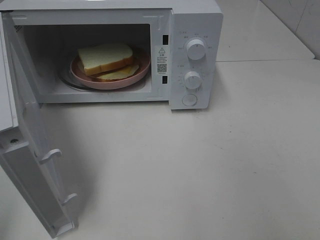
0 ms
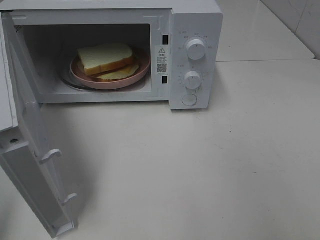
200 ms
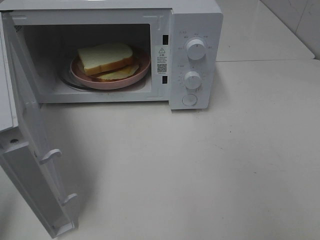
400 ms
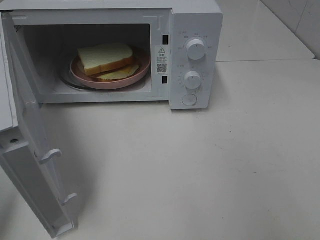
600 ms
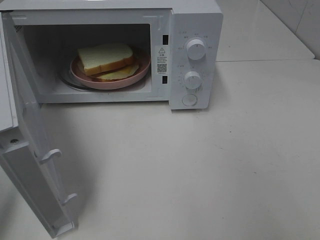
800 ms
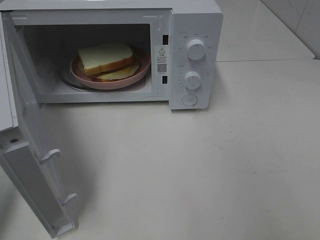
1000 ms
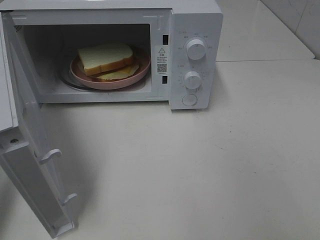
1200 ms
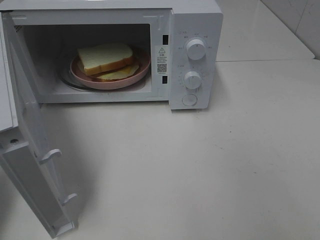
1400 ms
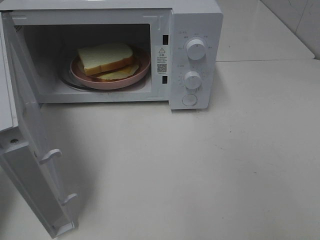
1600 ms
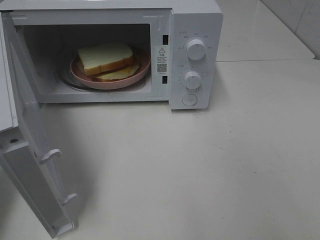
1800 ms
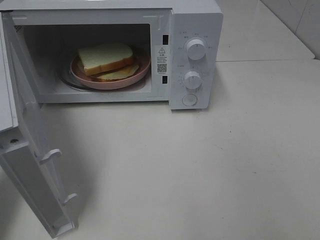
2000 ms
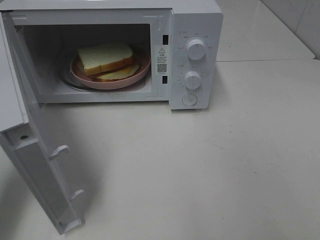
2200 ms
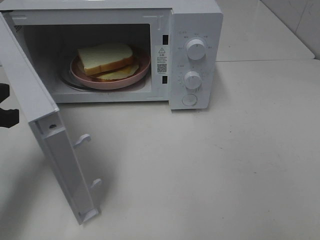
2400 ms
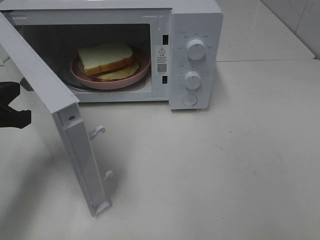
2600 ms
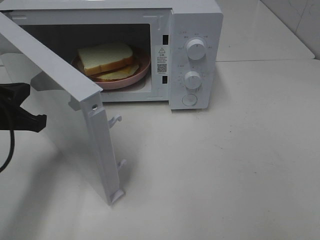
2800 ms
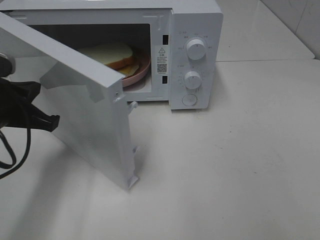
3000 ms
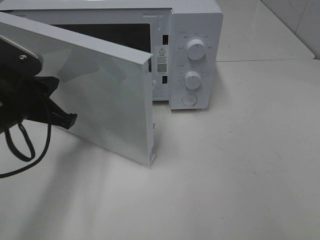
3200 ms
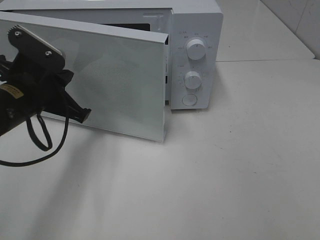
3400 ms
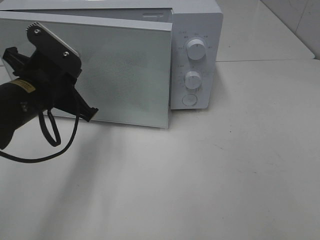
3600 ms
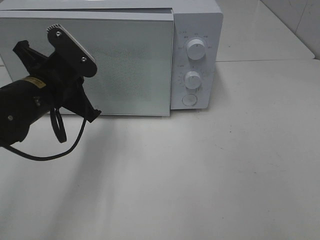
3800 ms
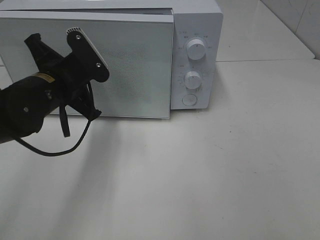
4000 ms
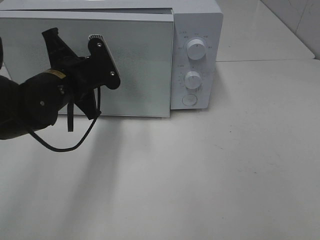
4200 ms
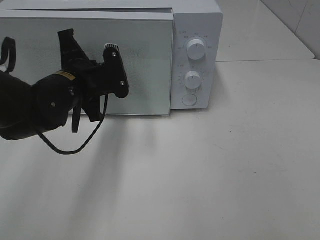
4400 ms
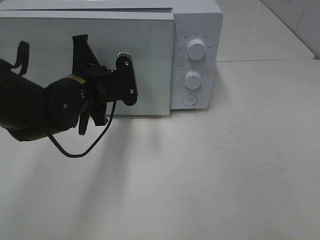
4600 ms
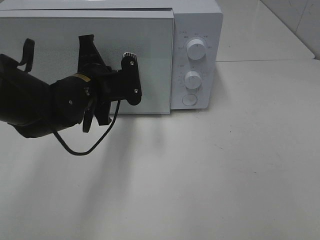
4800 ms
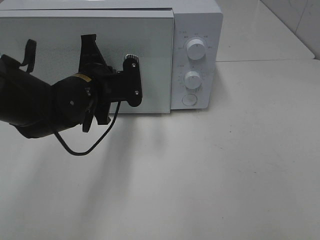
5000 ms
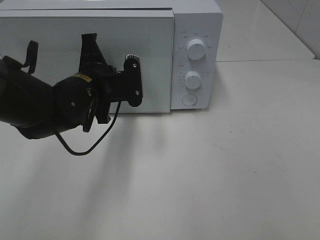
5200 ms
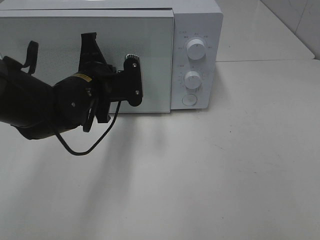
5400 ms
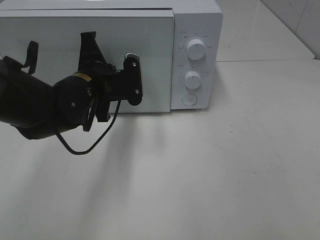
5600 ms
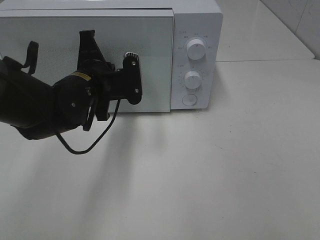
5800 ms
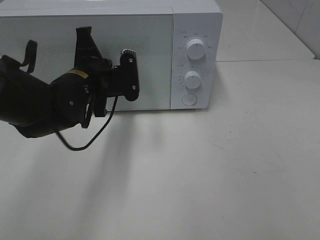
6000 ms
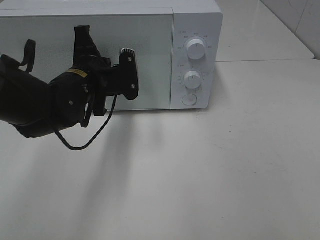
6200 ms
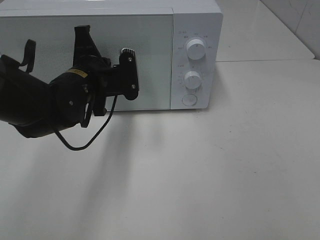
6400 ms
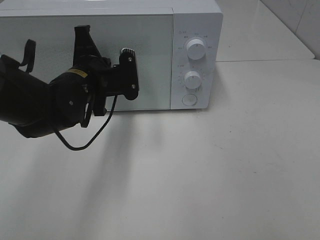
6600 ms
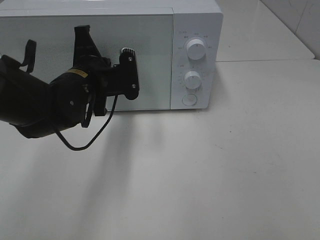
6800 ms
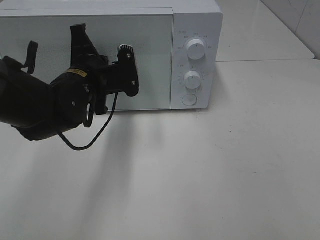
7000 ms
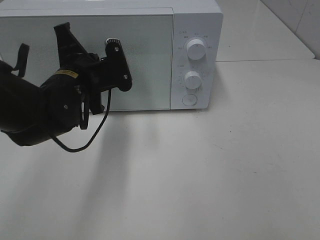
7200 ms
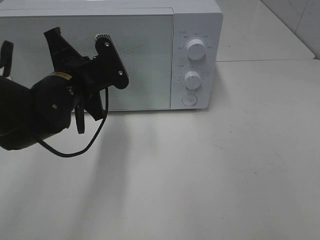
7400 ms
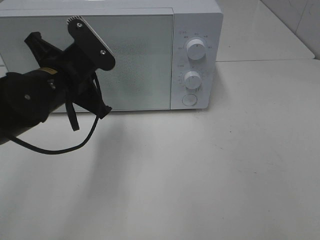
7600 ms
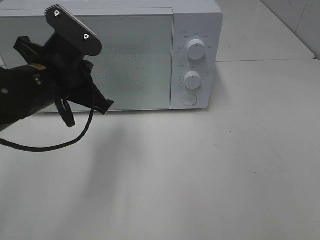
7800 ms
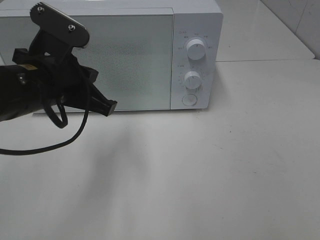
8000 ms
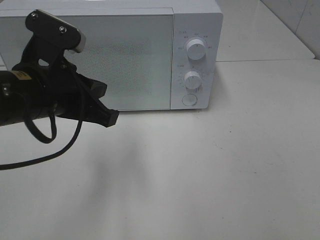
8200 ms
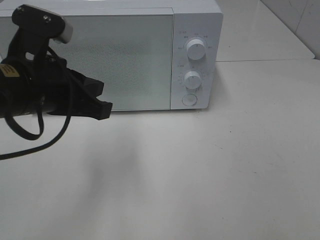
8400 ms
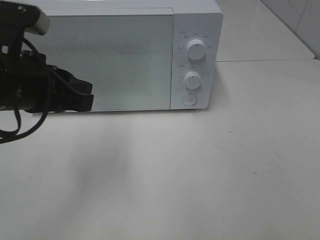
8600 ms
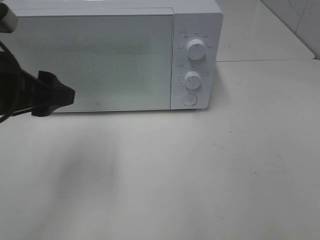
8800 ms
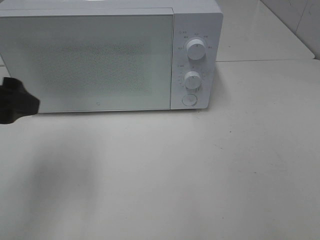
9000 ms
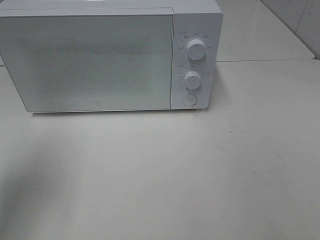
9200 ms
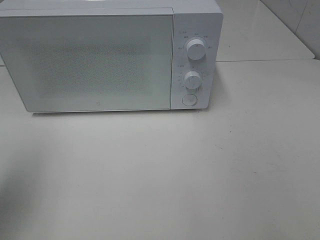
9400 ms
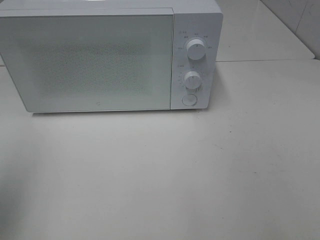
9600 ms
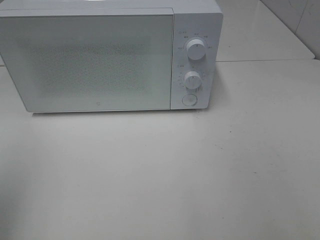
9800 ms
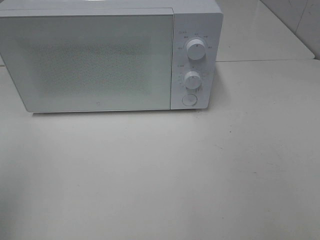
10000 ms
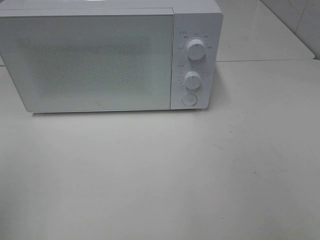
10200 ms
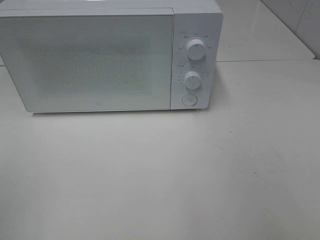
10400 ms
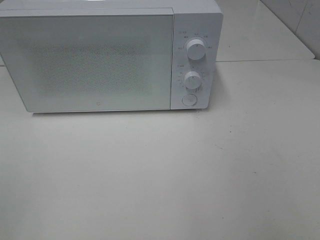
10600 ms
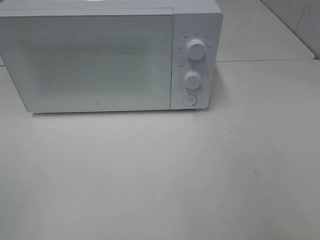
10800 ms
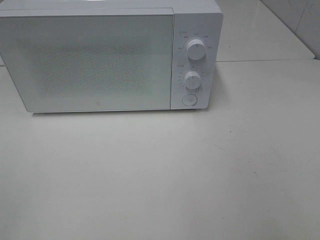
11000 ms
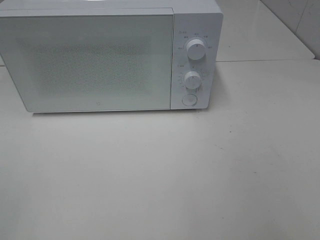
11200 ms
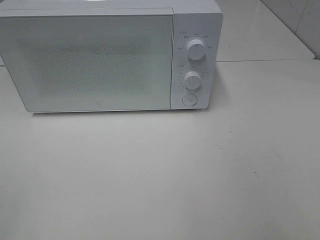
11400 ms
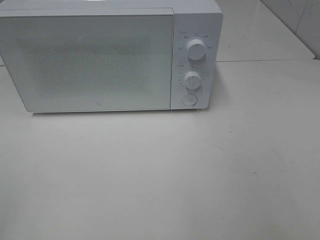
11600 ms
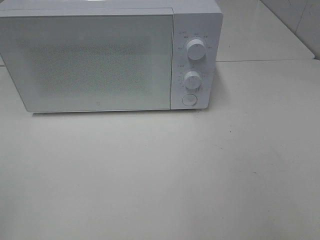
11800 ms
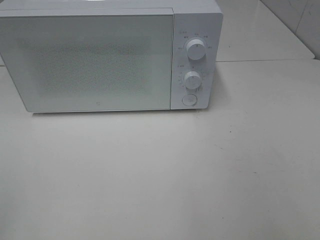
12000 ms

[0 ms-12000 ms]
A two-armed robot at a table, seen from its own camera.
Task of the whole recording: Heat Sandwich.
Step, 0 ms to 8600 ms: Left hand: close the microwave door.
0 ms to 1600 ms: The left gripper shifts roughly 15 cm forward and downward, and closes.
1600 ms to 3000 ms: The left gripper moves to the right, downward and forward, some 15 cm.
3000 ms to 4400 ms: The left gripper travels to the right and forward by some 15 cm.
4400 ms to 6000 ms: The grippers make only small movements.
6000 ms to 7600 ms: The left gripper travels backward by roughly 5 cm.
7600 ms to 9000 ms: The left gripper shifts some 15 cm to the left, backward and upward, and opens up.
9000 ms to 10400 ms: The left gripper moves backward and to the left, about 20 cm.

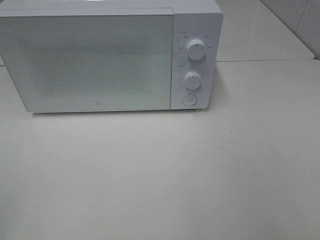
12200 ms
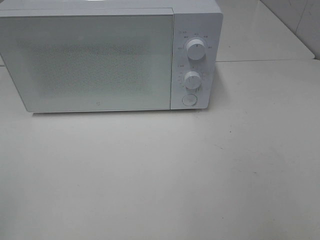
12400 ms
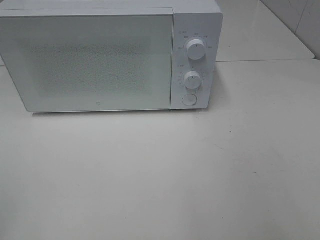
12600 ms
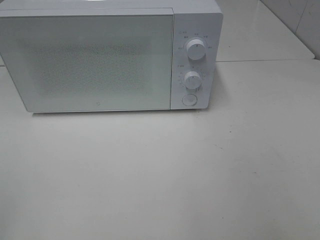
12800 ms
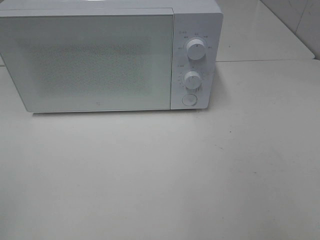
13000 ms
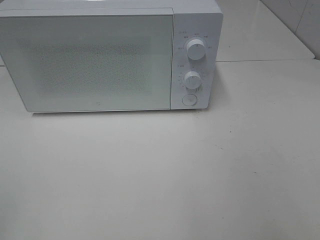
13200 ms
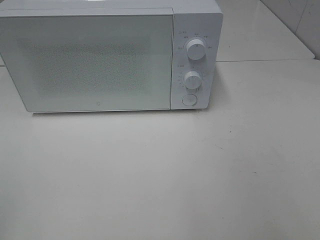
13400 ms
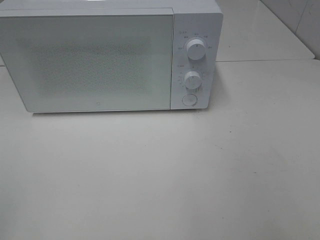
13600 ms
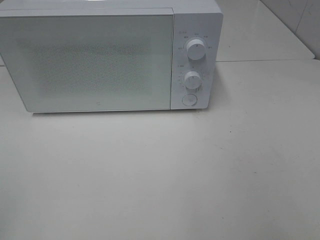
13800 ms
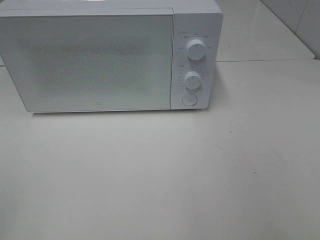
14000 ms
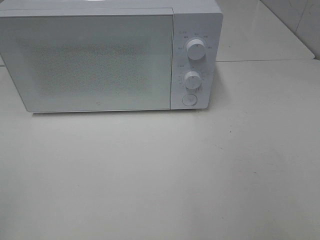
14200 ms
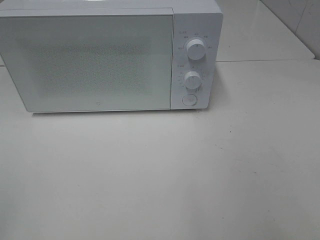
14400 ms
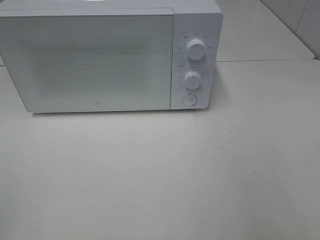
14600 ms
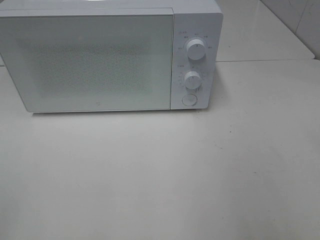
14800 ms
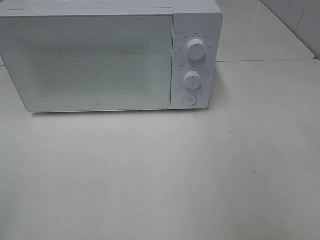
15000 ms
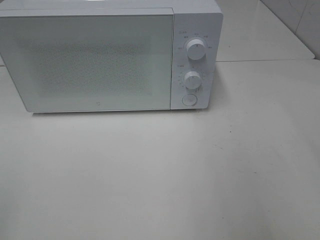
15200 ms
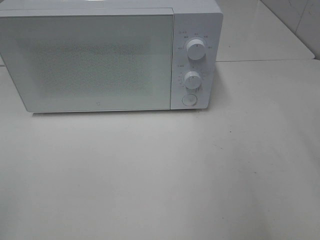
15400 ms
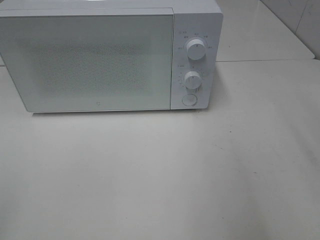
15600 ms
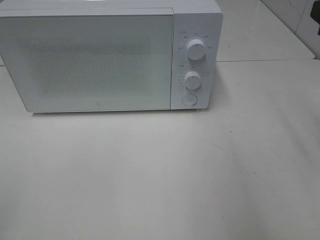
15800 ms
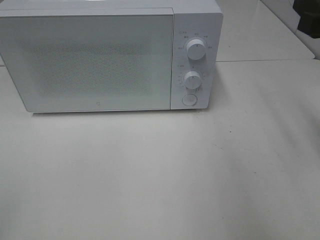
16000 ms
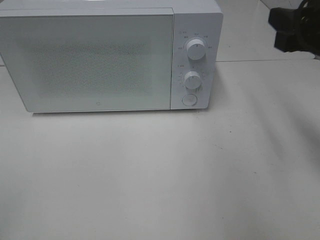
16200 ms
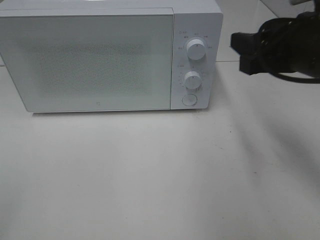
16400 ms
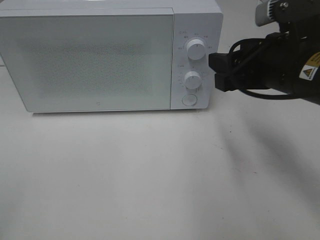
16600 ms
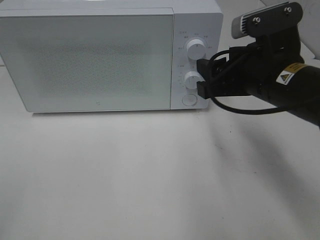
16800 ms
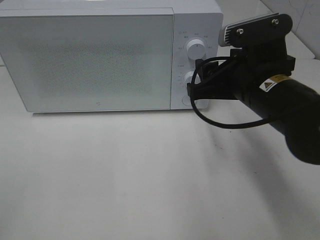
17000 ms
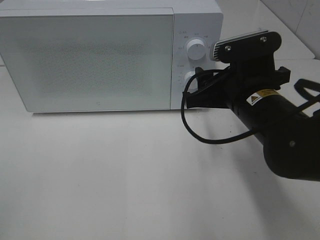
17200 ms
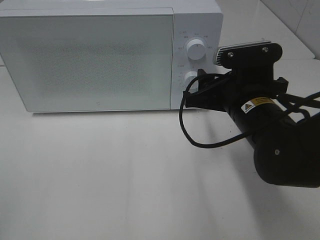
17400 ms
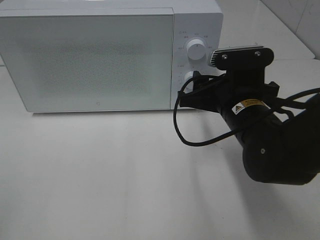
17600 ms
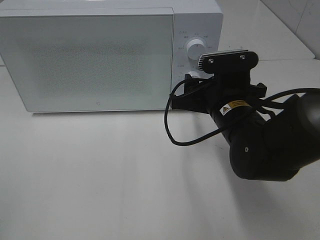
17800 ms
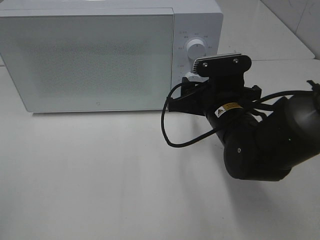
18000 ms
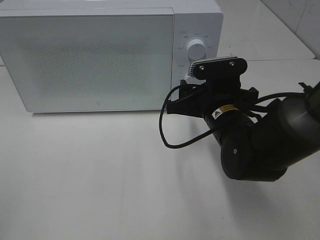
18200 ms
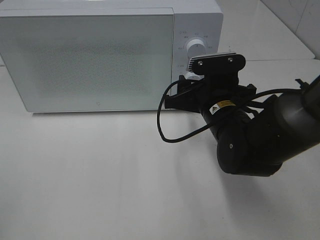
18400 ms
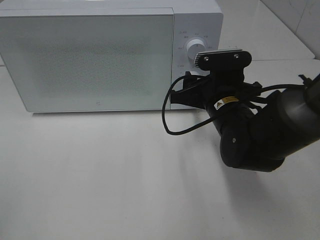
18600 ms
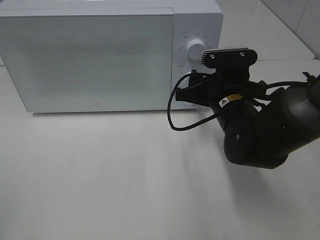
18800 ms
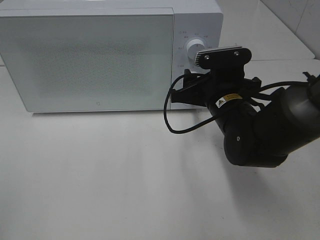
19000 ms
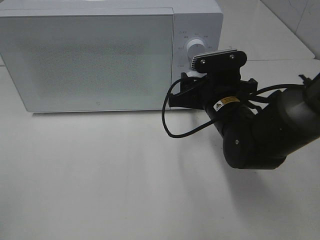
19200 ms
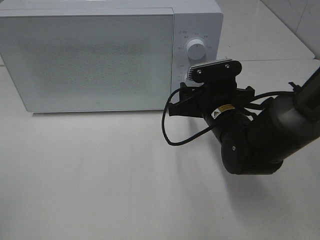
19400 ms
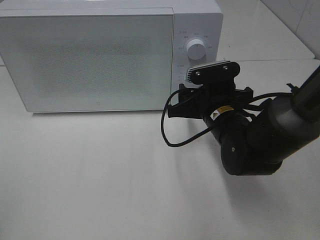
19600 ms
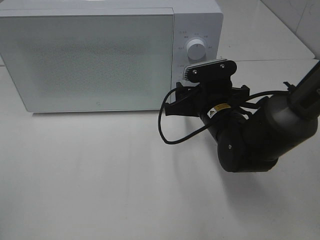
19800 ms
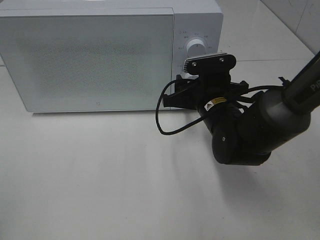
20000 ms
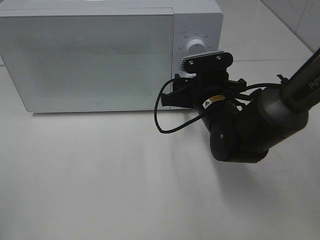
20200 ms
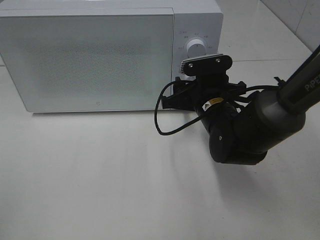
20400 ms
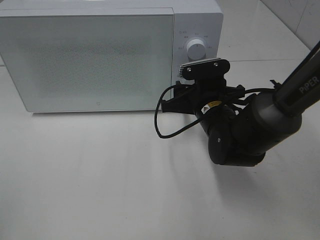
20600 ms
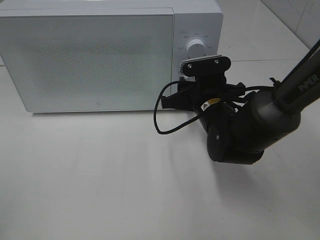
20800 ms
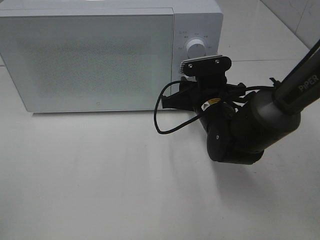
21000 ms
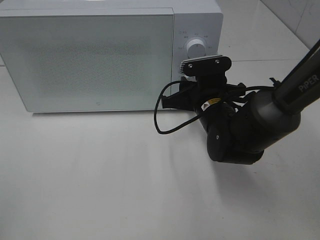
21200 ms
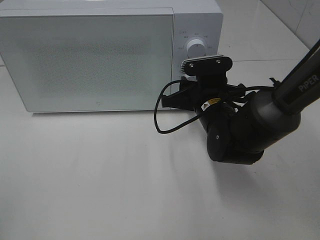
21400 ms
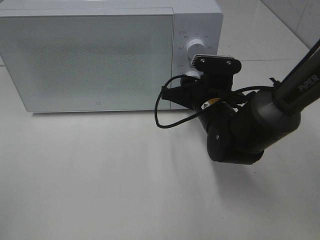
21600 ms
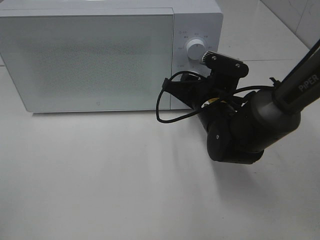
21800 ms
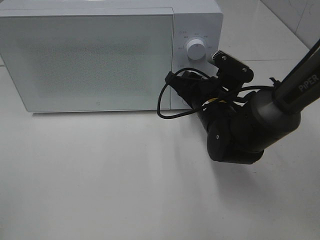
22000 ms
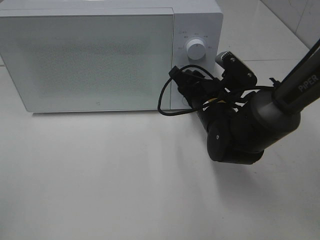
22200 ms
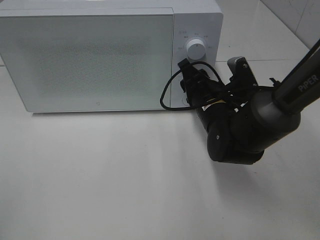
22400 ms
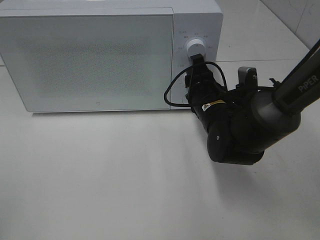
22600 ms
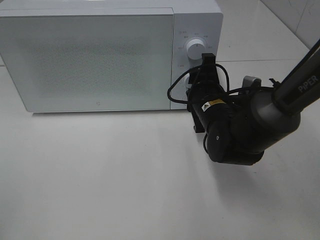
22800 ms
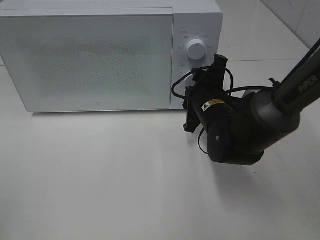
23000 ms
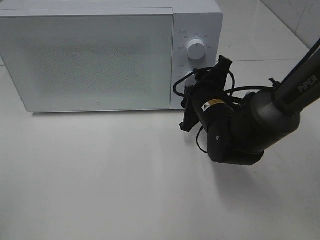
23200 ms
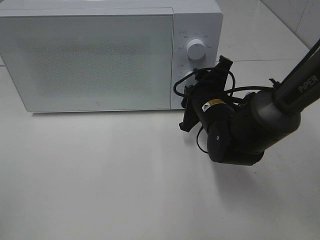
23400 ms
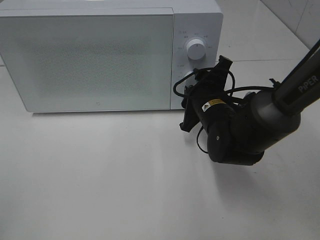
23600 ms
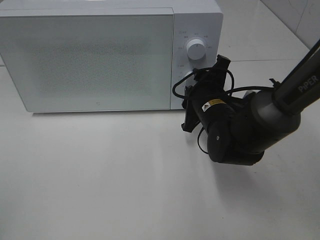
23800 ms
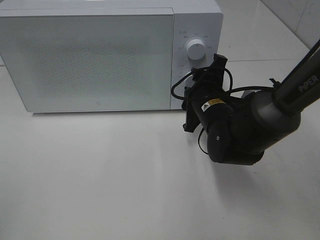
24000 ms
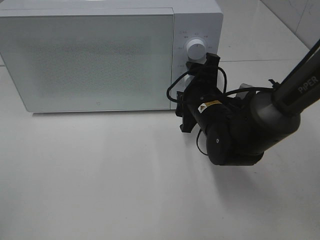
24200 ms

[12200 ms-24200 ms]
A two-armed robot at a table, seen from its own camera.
Task of the whole recording: Heat Sandwich.
12200 ms to 13800 ms: Both grippers stay about where they are.
15200 ms to 16600 ms: The right gripper goes about 20 cm forward, to the left and downward.
16600 ms to 18200 ms: The right gripper shifts about 10 cm downward and to the left.
18200 ms to 21200 ms: The grippers move only a little.
22600 ms to 24200 ms: The right gripper opens its fingers.
